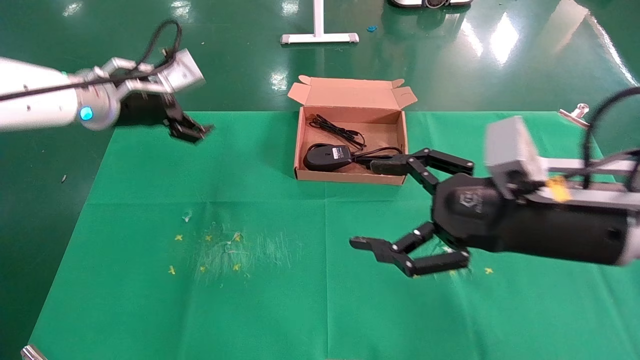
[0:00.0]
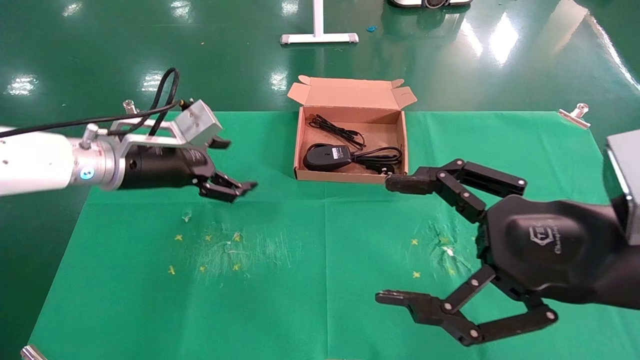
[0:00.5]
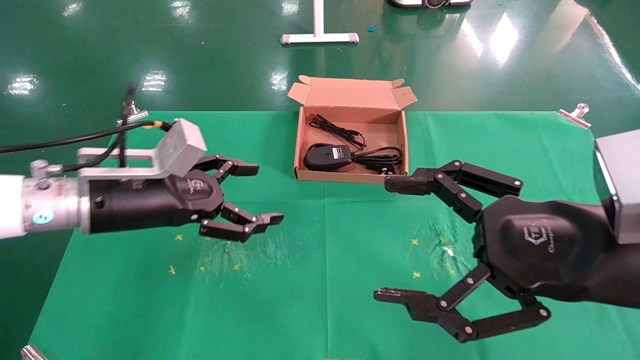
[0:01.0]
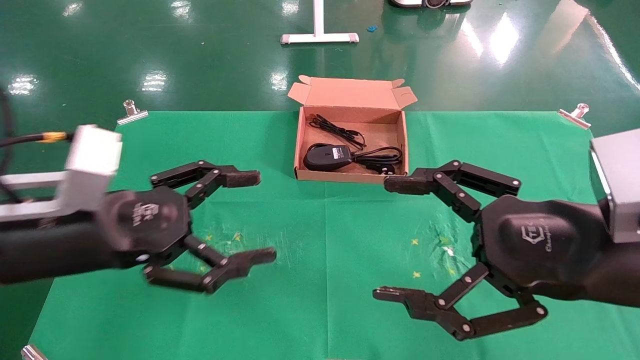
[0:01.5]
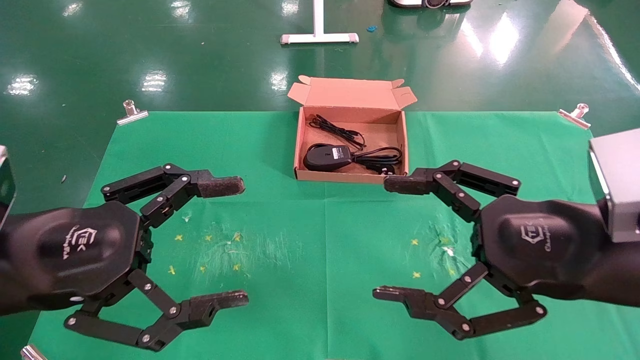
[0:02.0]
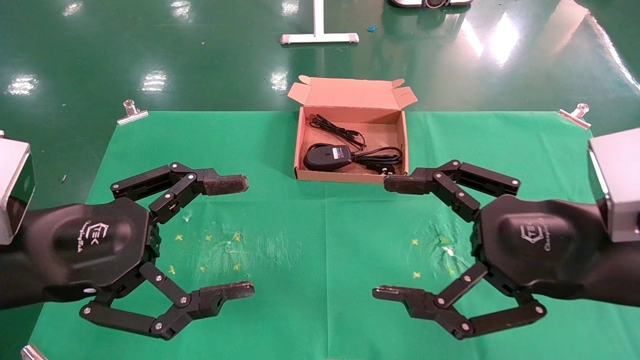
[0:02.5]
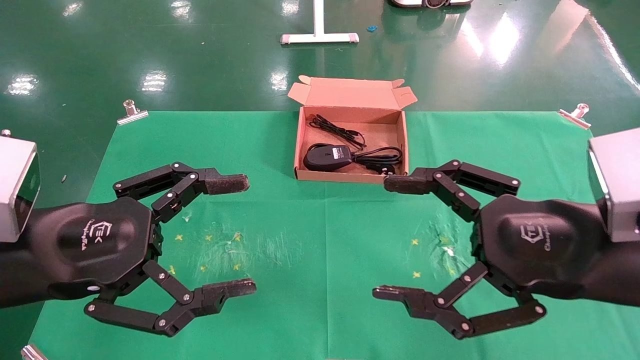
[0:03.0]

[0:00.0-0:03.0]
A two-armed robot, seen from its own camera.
Task of the whole recording: grasp data cable left put into box grasp mouse right put into box.
0:00.0 to 0:01.5: The right gripper is displaced backward by roughly 5 cm. The left gripper travels backward and downward by about 20 cm.
0:01.5 to 0:03.0: The grippers move only a little.
